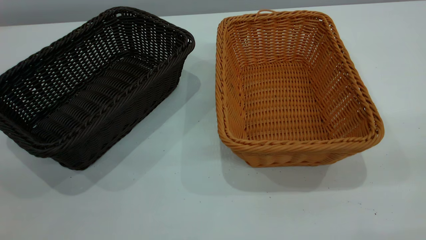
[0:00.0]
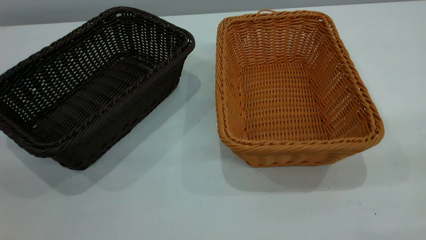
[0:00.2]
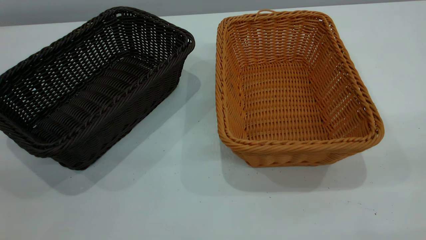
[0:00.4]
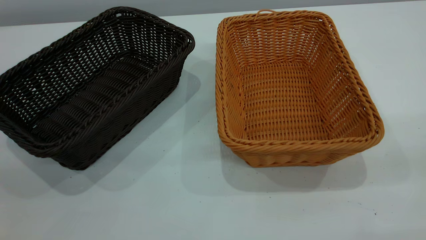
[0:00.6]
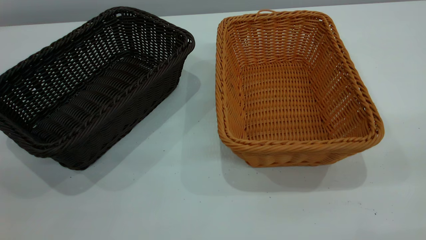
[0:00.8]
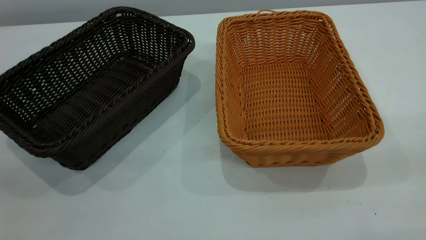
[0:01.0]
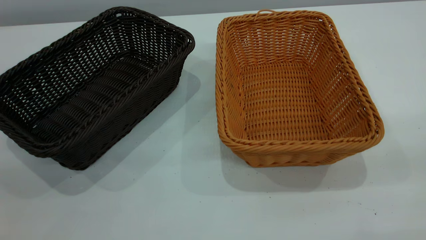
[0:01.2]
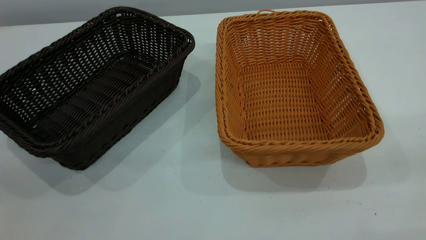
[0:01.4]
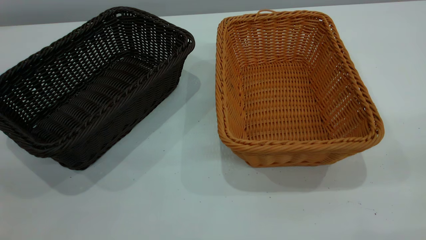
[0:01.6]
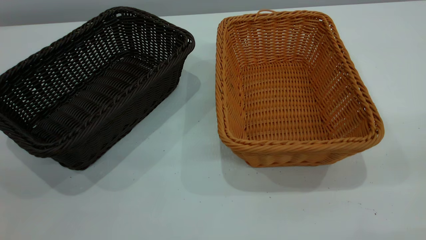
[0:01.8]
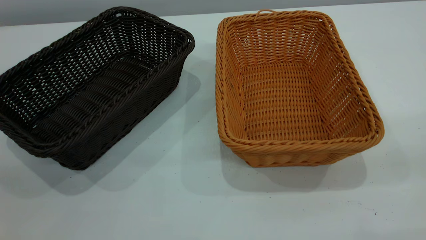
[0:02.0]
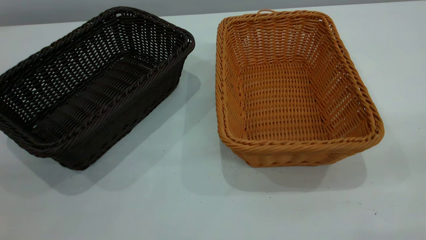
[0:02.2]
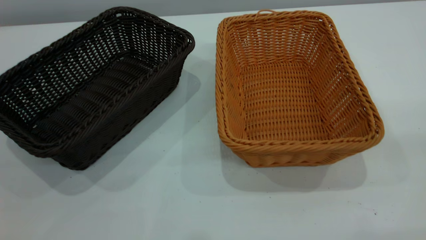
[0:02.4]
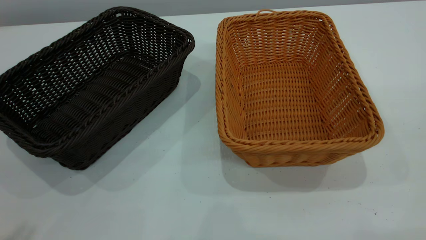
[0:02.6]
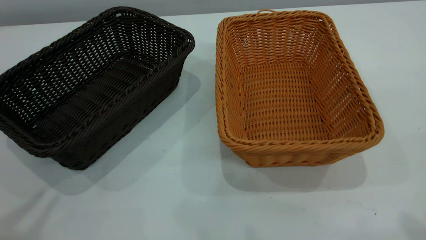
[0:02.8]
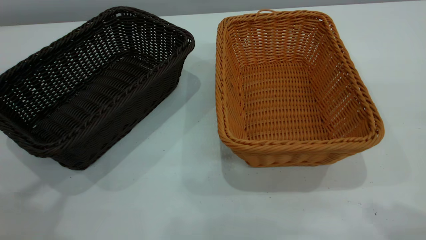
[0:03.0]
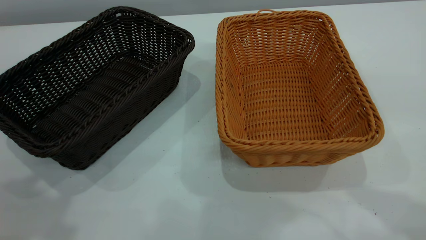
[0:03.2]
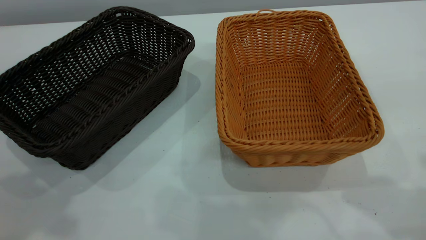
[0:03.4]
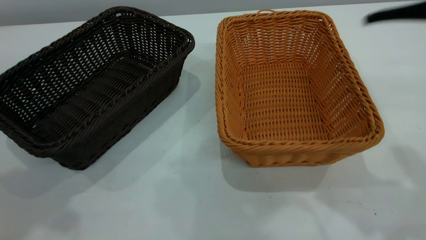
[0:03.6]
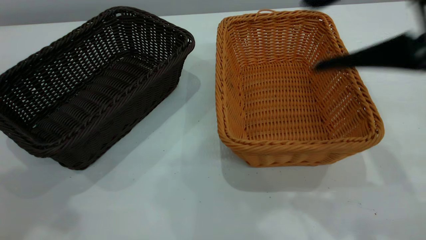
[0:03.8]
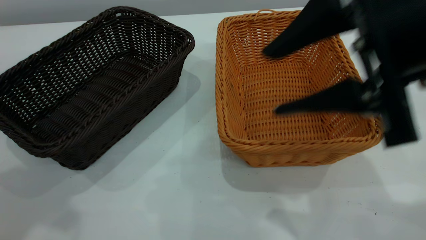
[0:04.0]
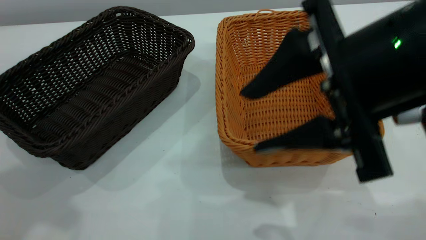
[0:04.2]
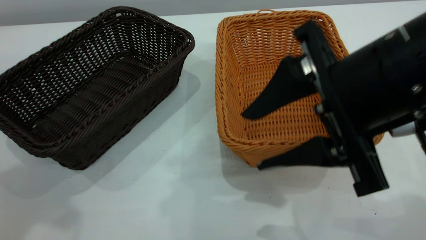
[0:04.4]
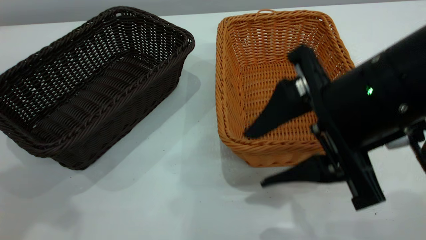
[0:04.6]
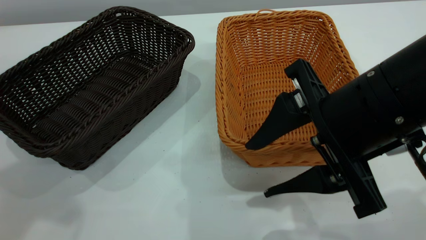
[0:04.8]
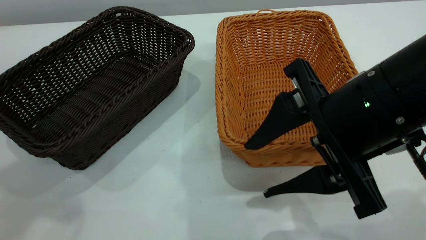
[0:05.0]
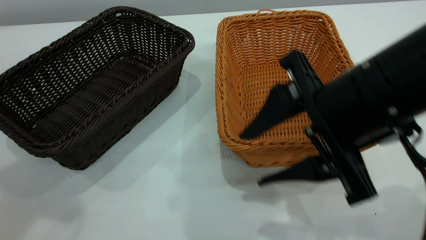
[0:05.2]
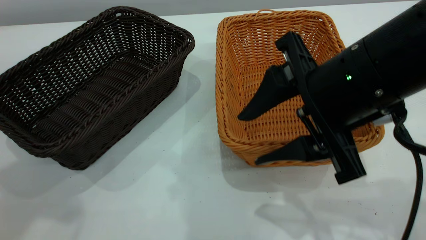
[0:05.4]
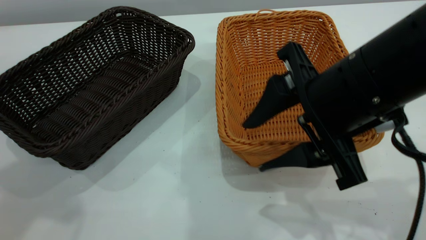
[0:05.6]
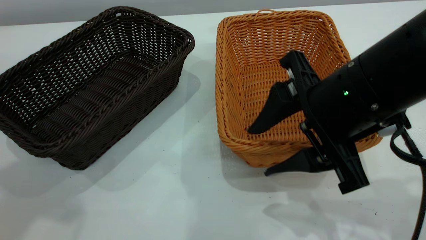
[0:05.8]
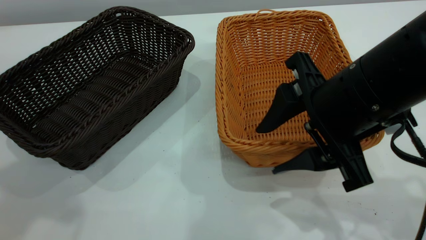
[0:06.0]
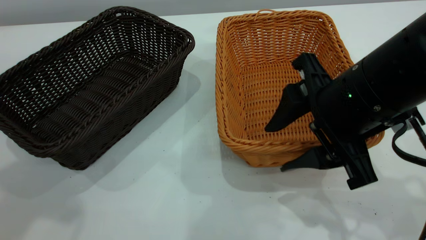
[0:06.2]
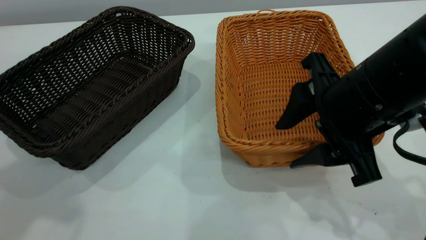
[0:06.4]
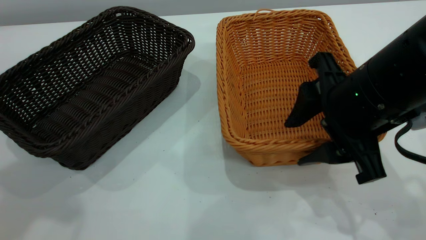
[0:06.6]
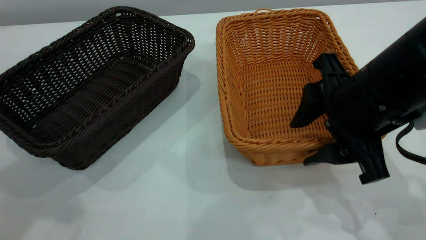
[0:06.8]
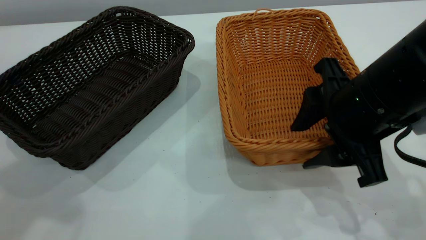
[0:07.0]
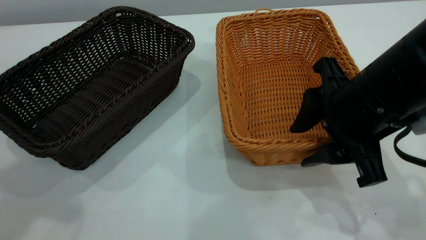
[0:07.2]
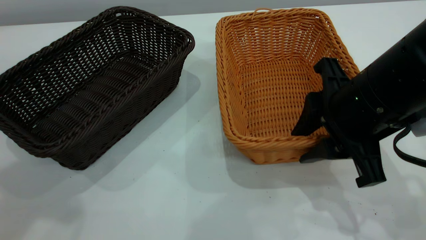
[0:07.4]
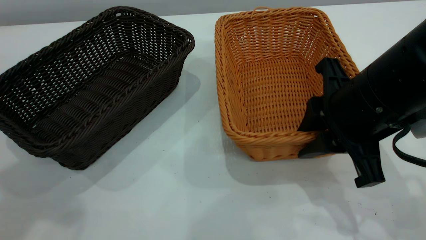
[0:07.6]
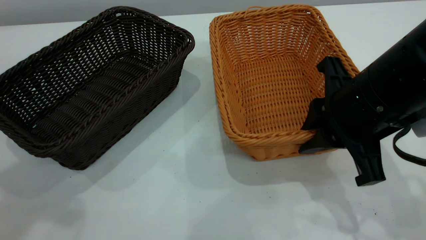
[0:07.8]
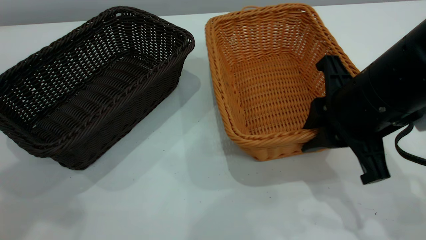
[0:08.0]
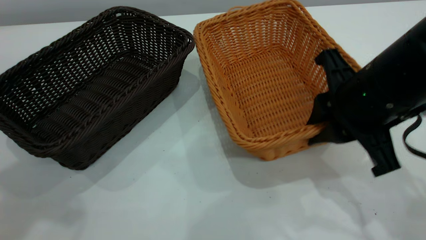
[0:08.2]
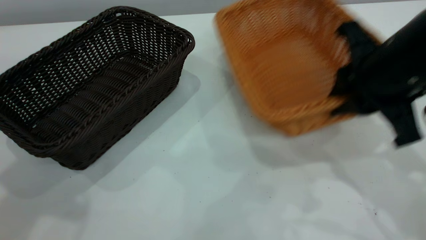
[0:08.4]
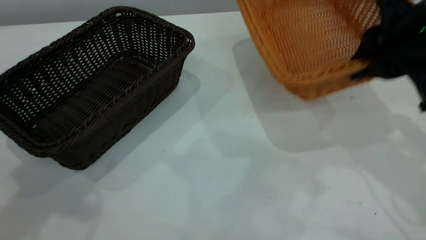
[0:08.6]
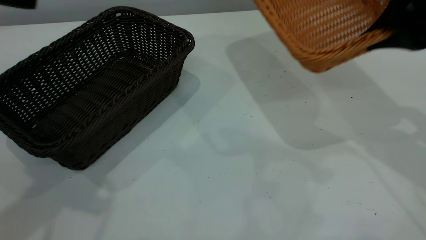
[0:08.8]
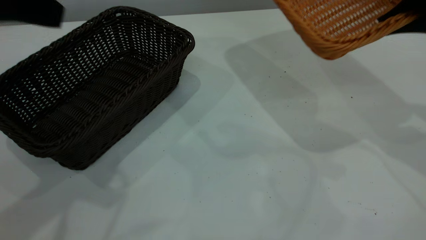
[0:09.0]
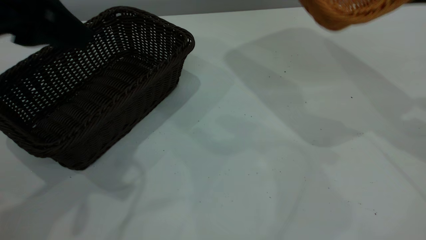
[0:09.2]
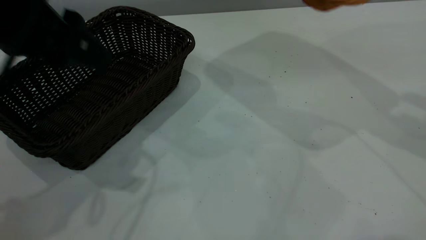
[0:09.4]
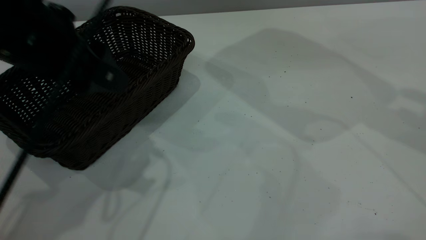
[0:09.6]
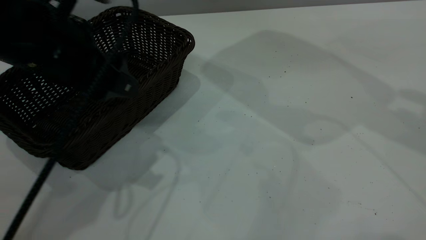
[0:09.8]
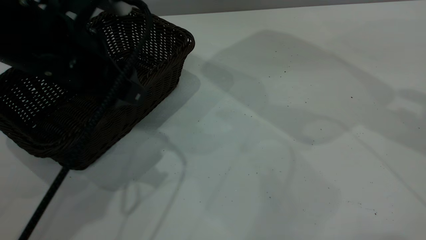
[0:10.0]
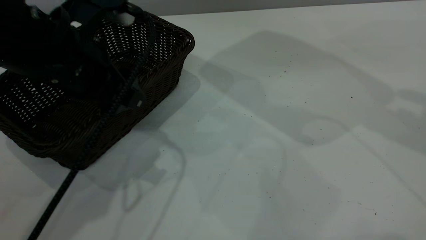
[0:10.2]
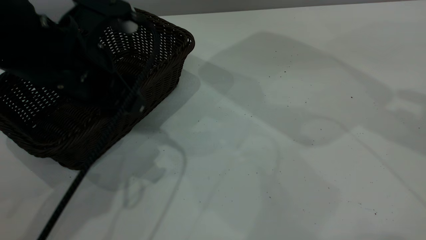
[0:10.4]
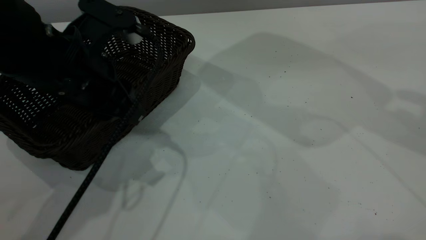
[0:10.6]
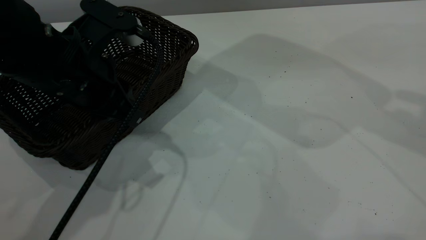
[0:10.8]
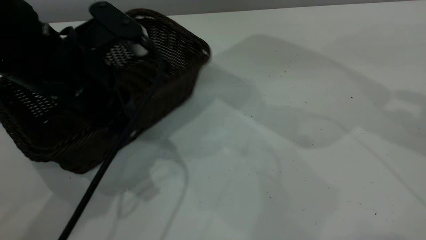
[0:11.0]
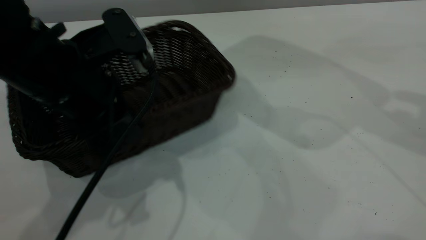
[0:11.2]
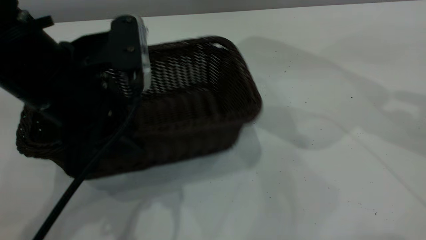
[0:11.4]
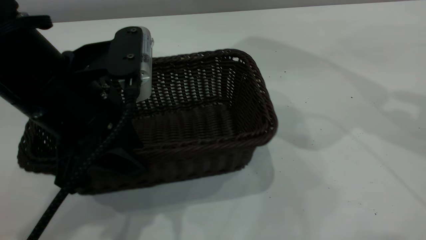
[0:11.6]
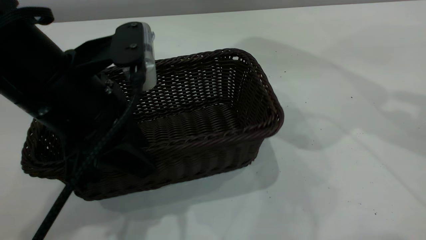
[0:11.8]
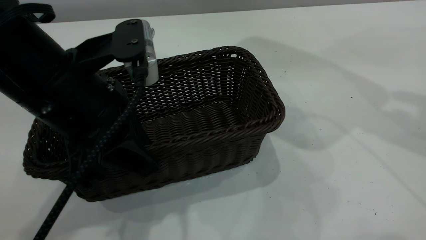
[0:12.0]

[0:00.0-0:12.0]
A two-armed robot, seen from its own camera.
Task of the whole recording: the left gripper grasp the black basket and place it in the center of the table, the right gripper grasp the brown basket and place it inside the black one.
Step, 0:00.0 to 0:08.2: Pick up the light basket with the right gripper.
0:00.0 to 0:01.6: The two grippers keep their place.
0:03.0 to 0:04.4: The right gripper goes some 20 cm downward, to the left and forward.
0:04.4 to 0:06.0: The grippers make only small movements.
0:06.0 to 0:07.6: The right gripper closes.
0:07.6 to 0:09.0: The right gripper is displaced to the right and upward by approximately 15 cm. The left gripper heads downward, covering roughly 5 cm.
0:09.0 to 0:10.4: The right gripper moves upward, roughly 5 cm, while the left gripper shifts some 15 cm downward and to the right.
0:10.4 to 0:12.0: The left gripper goes about 5 cm backward, and closes its fingers.

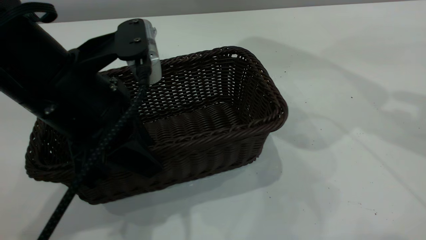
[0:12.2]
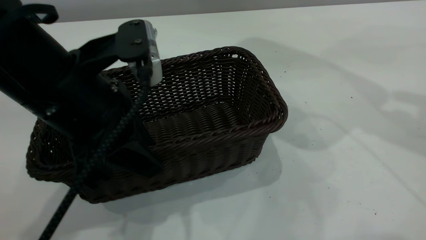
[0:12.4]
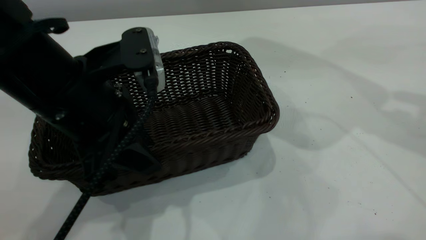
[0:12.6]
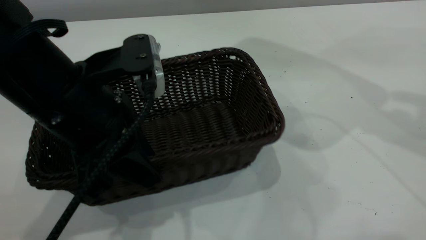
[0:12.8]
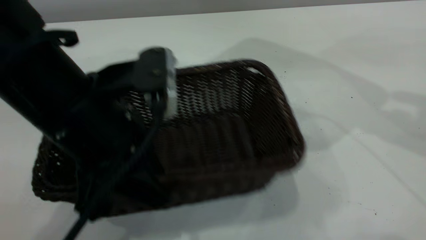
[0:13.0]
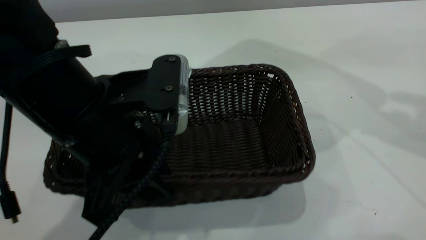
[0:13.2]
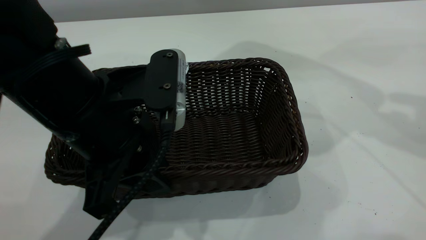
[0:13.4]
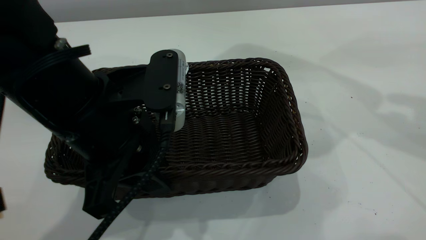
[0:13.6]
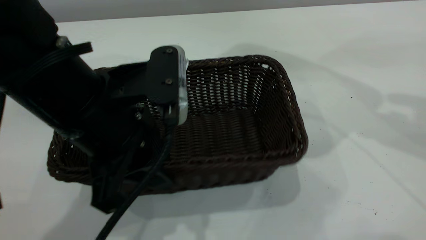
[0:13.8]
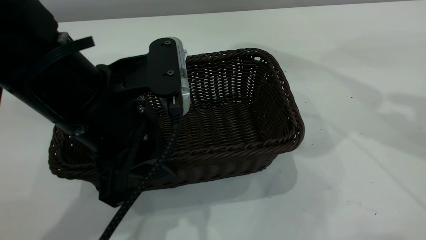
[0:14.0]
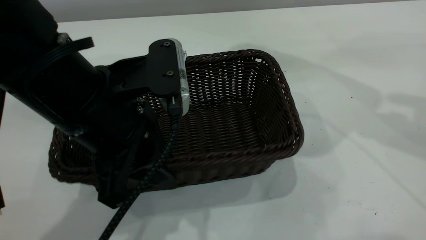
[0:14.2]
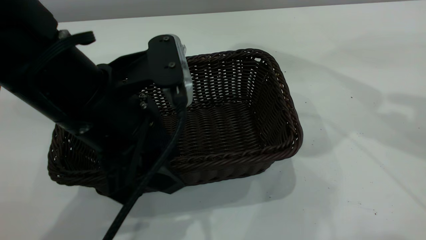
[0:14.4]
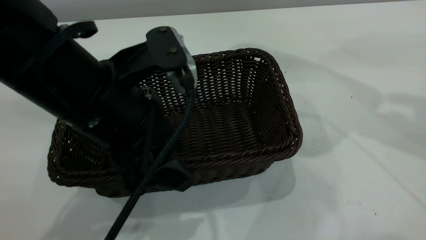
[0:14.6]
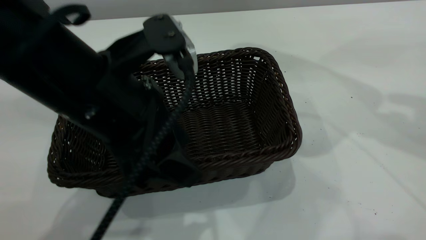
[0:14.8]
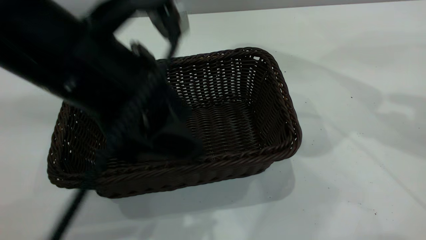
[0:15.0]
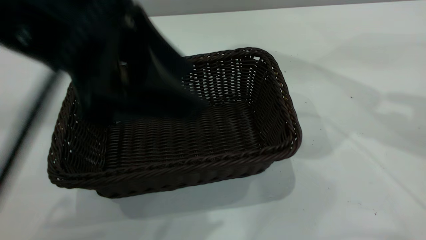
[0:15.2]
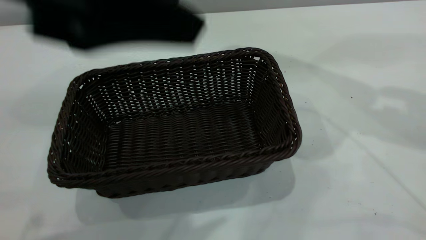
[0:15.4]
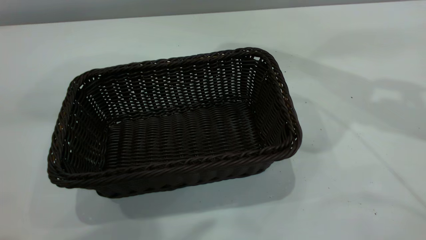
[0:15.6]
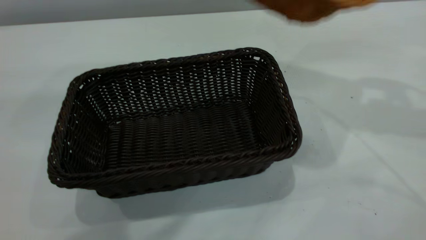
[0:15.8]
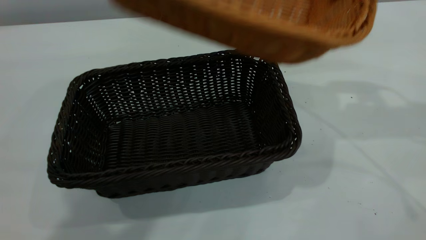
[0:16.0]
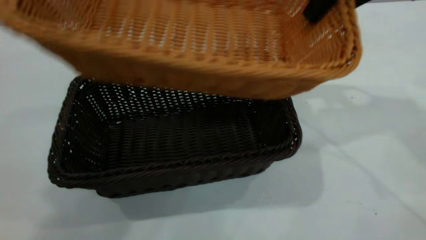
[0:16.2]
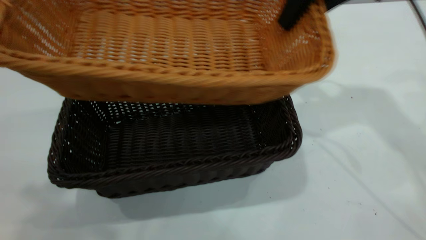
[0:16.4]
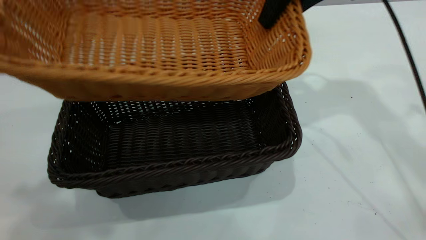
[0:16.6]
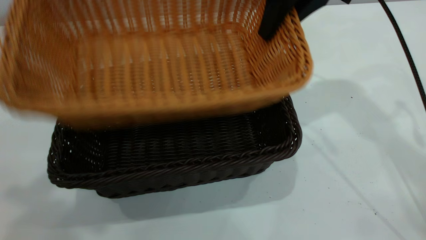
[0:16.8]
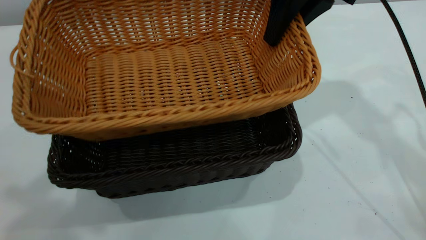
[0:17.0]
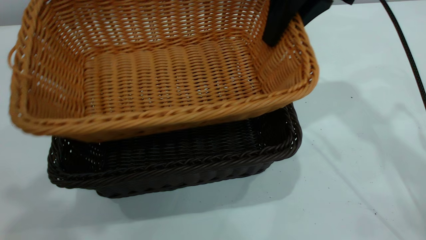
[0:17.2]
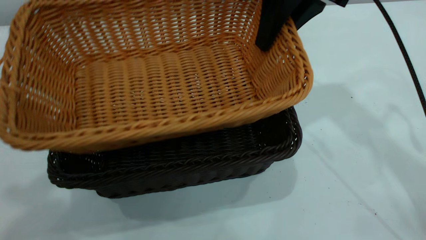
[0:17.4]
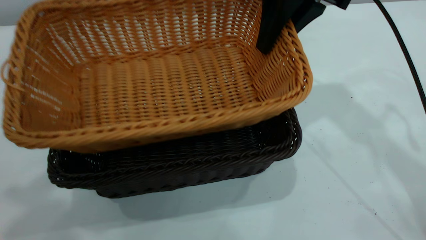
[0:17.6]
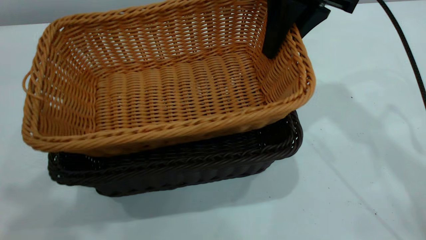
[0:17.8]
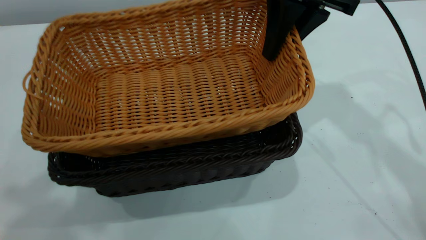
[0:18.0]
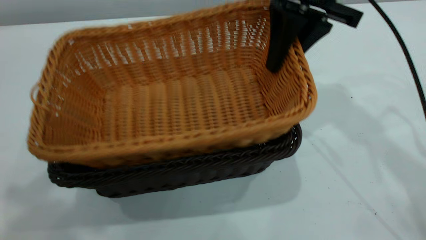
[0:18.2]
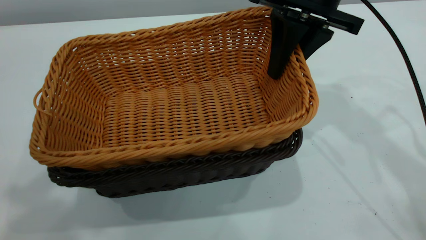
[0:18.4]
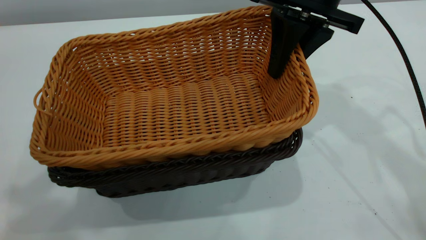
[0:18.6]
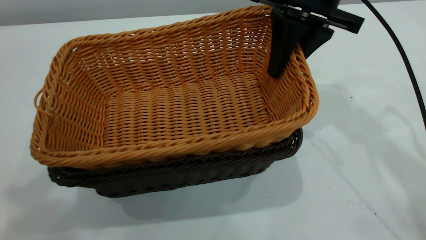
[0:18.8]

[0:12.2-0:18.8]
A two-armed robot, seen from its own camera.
Task of the whole recording: the left gripper grasp the black basket and place it in the center of the table, the right gripper grasp the brown basket and place it inside the black one.
Step, 0:12.2 to 0:15.2: Move the dark basket to the center of view.
0:12.2 to 0:13.8: The grippers move only a little.
0:13.8 to 0:15.4: The left gripper travels upward by about 15 cm, and opens its fingers.
0:15.4 to 0:17.2: The right gripper travels to the left and forward by about 15 cm. The left gripper is displaced upward and to the left by about 15 cm.
